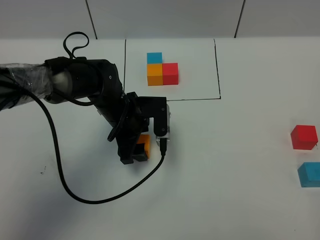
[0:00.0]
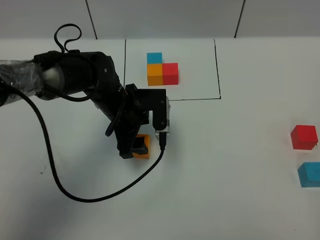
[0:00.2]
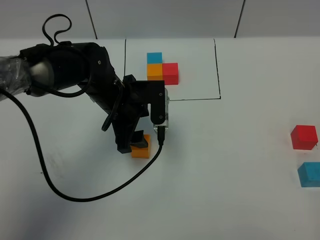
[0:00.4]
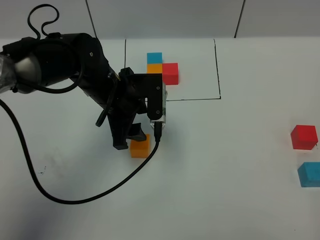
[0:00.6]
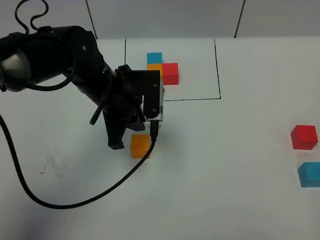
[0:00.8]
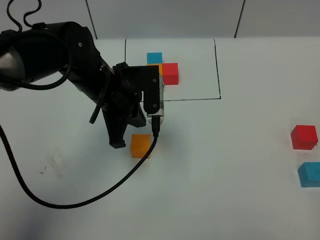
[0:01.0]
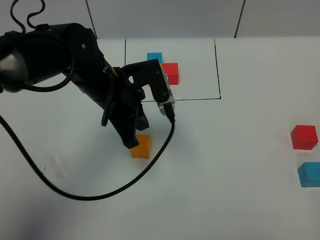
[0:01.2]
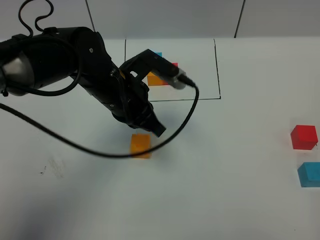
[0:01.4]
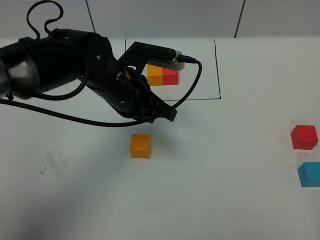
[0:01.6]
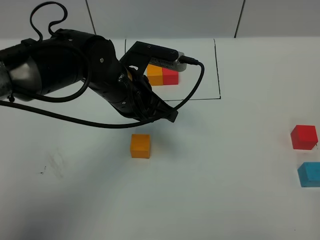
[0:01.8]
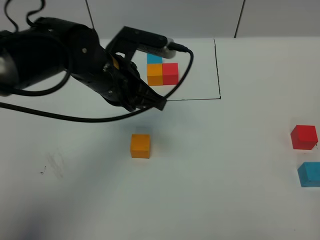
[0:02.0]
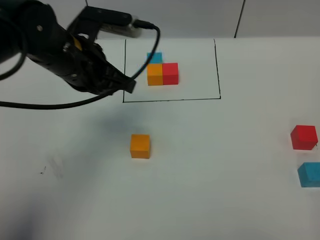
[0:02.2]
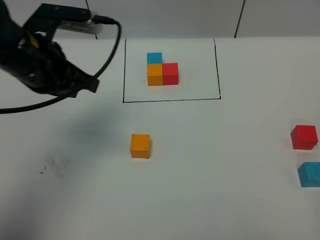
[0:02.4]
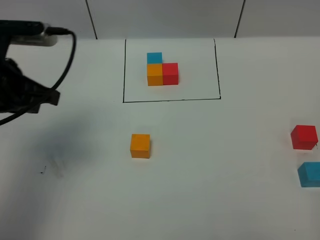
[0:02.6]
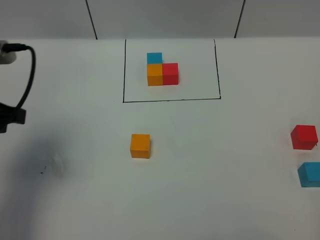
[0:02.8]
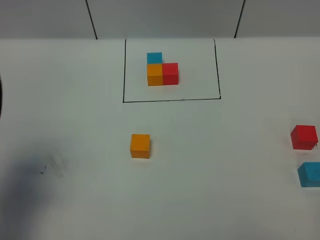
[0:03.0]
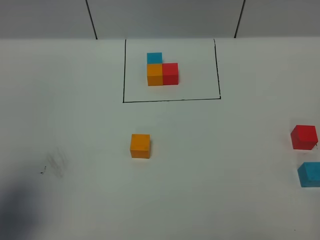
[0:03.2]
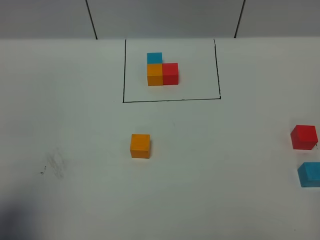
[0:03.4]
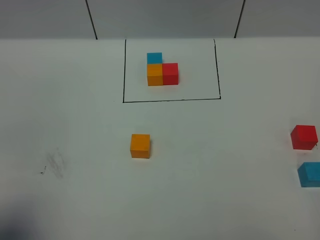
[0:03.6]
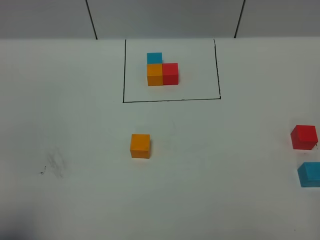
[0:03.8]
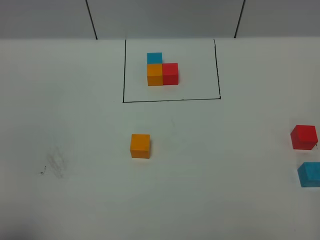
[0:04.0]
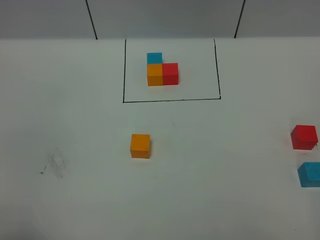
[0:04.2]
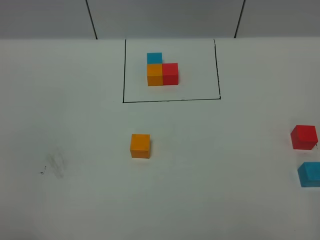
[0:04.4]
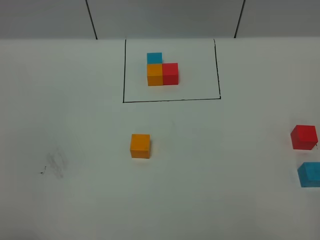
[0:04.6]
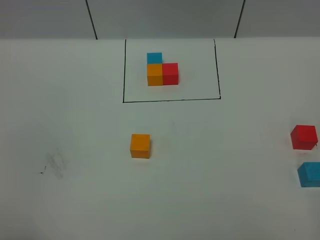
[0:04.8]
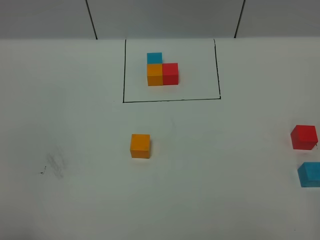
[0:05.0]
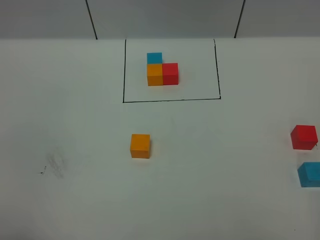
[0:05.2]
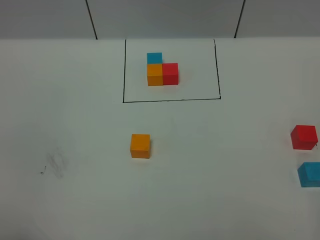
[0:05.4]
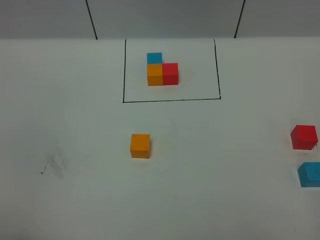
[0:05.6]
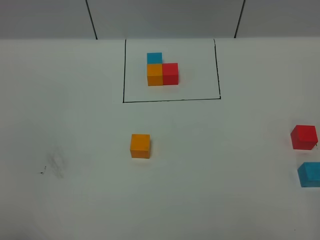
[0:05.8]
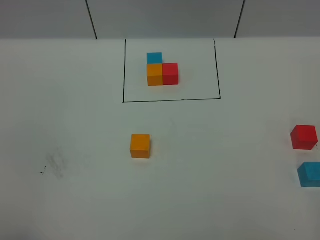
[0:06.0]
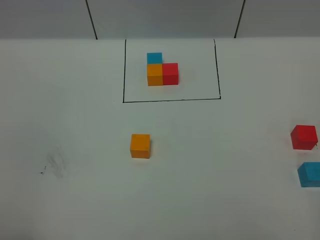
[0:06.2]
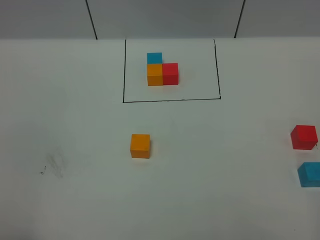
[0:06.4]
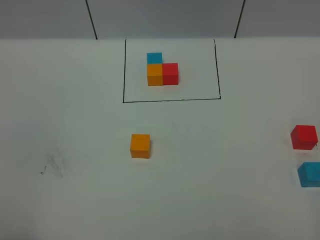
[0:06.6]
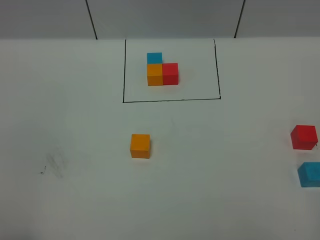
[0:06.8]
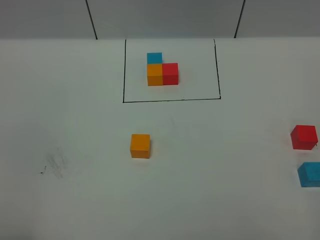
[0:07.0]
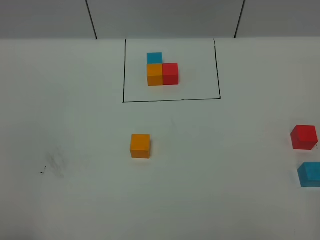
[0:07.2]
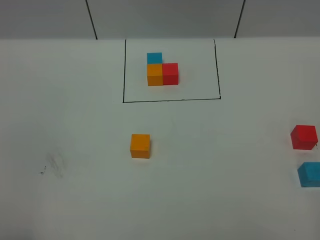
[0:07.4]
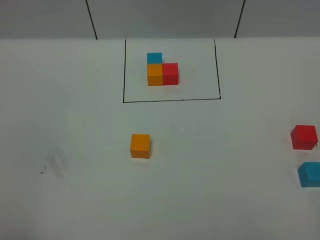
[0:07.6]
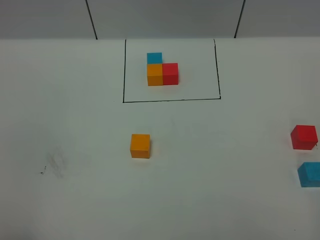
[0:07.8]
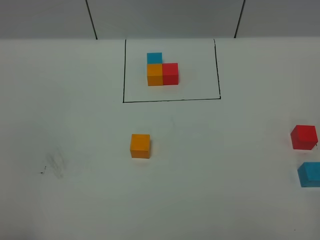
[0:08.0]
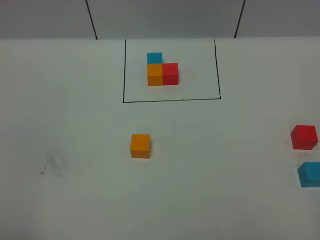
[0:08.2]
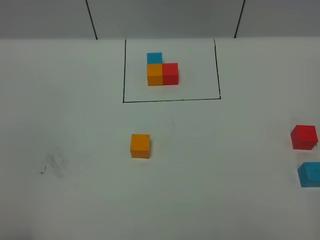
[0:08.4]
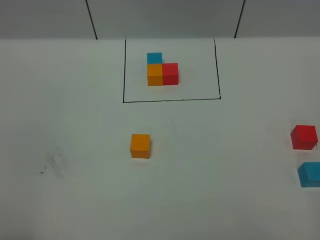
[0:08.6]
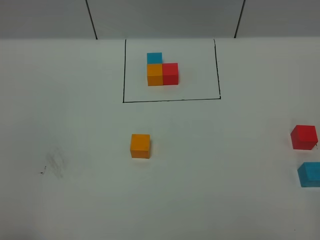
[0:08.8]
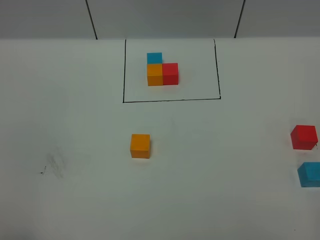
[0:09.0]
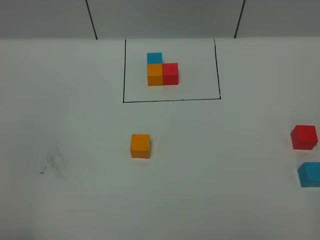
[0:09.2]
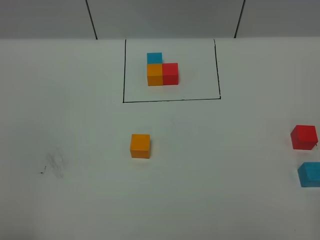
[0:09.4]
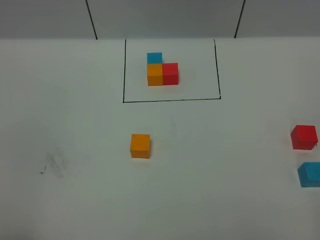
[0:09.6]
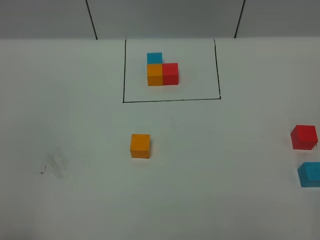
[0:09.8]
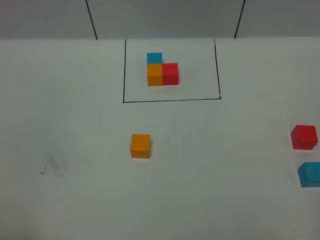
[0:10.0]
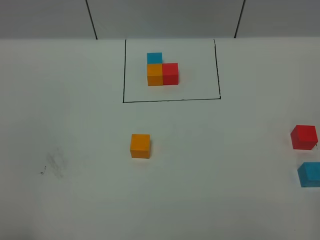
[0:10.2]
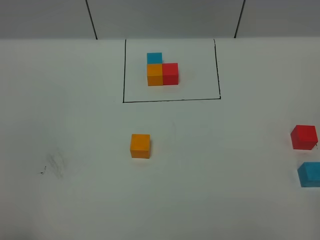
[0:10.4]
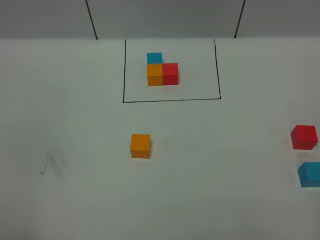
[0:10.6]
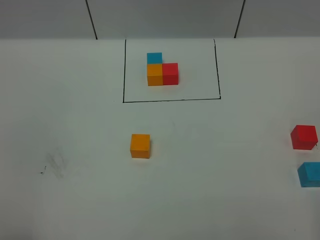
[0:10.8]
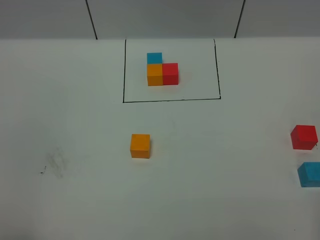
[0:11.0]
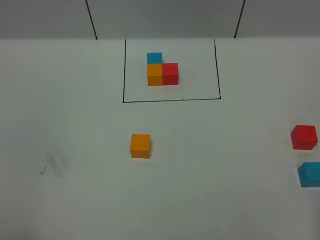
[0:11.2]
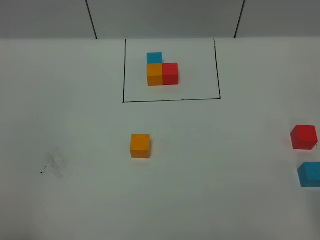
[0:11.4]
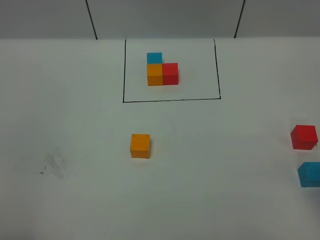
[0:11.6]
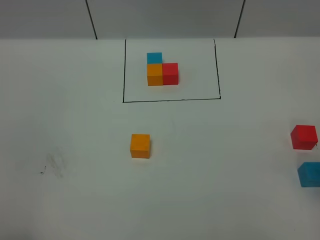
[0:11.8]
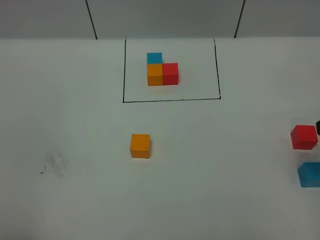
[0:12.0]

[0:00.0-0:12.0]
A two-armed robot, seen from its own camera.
Task of the whole recording: According to the building block template in front, assemble the scattered blocks together.
0:00.0 to 0:01.6: The left gripper heads upward, covering about 10 cm, and closes up.
0:01.6 to 0:03.0: The left gripper moves to the left and backward, about 30 cm.
0:03.0 to 0:04.4: The left gripper travels backward by approximately 15 cm.
0:04.4 to 0:06.0: Both grippers stay about where they are.

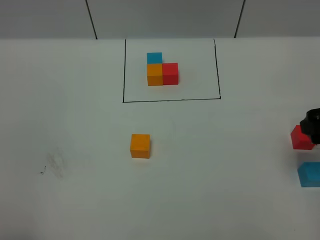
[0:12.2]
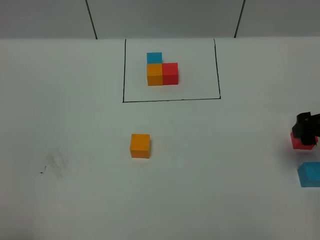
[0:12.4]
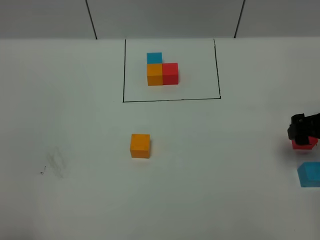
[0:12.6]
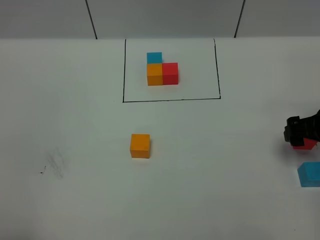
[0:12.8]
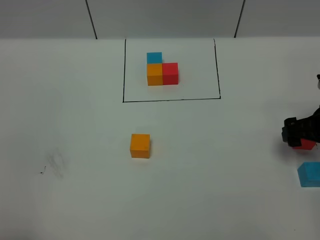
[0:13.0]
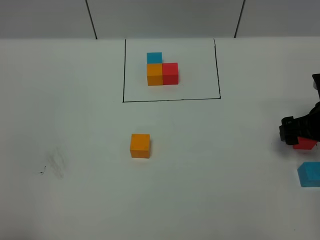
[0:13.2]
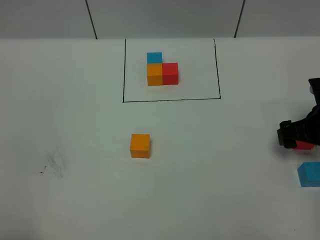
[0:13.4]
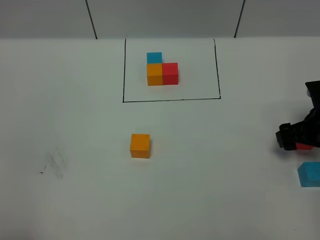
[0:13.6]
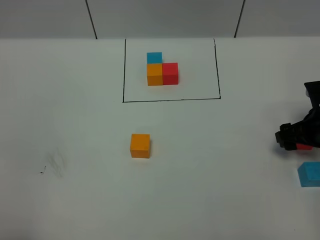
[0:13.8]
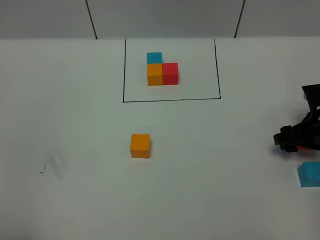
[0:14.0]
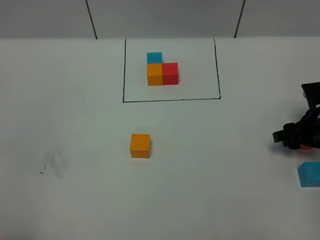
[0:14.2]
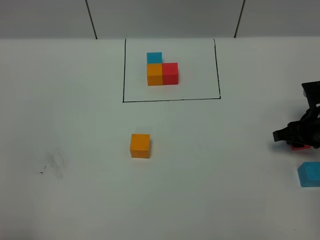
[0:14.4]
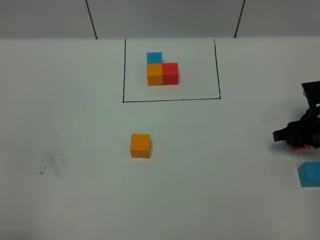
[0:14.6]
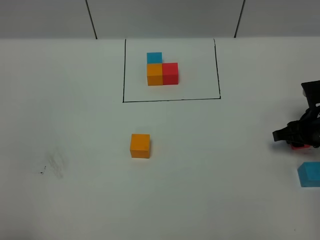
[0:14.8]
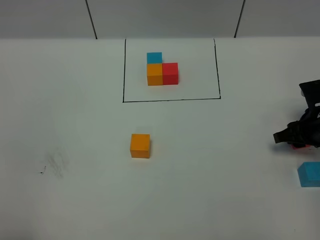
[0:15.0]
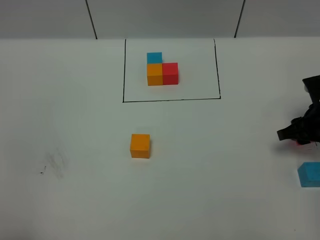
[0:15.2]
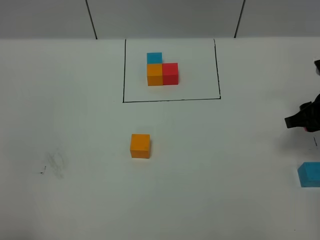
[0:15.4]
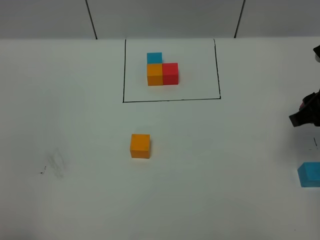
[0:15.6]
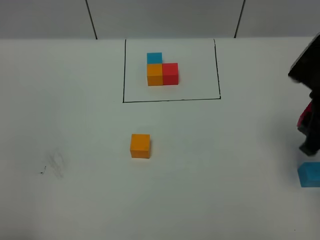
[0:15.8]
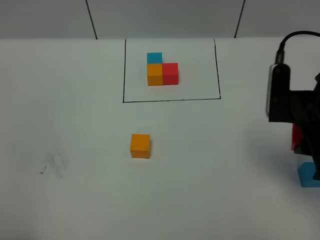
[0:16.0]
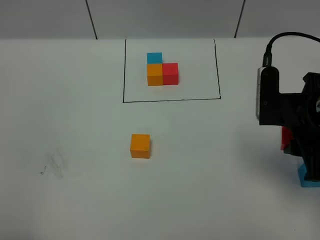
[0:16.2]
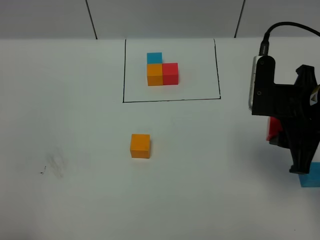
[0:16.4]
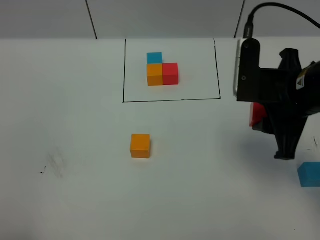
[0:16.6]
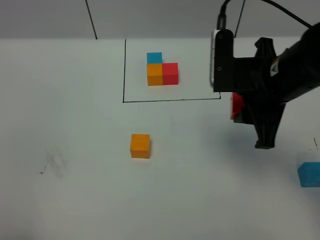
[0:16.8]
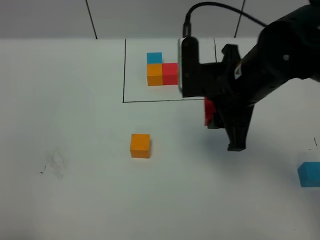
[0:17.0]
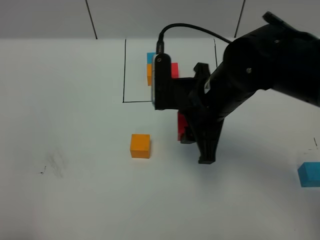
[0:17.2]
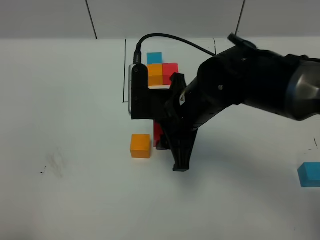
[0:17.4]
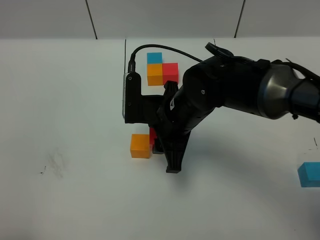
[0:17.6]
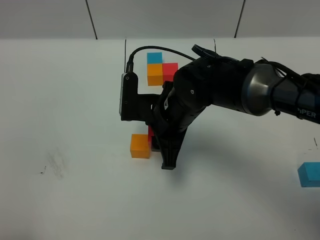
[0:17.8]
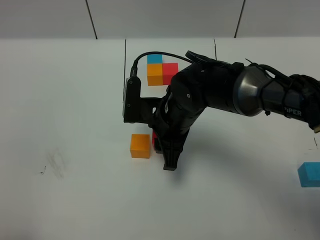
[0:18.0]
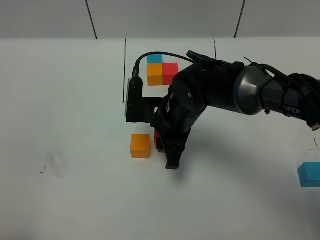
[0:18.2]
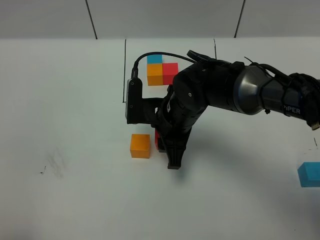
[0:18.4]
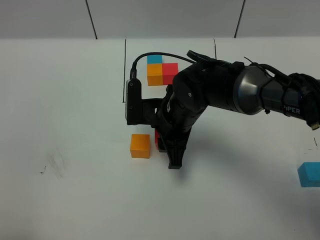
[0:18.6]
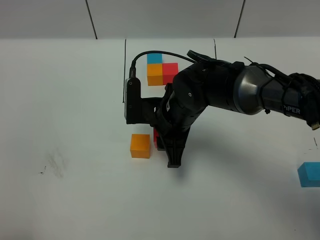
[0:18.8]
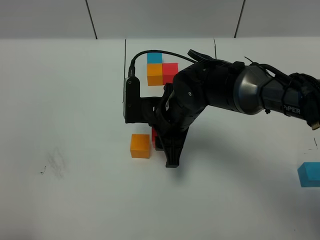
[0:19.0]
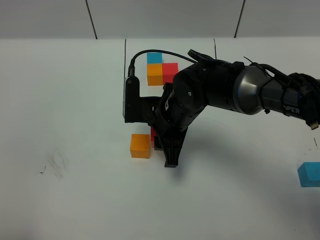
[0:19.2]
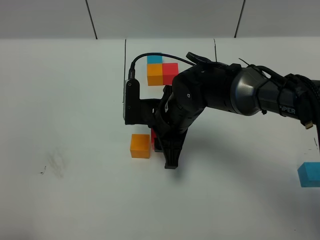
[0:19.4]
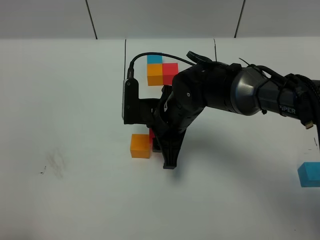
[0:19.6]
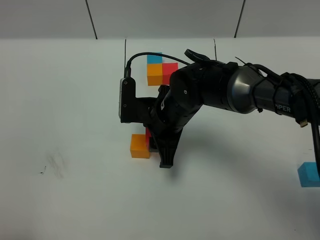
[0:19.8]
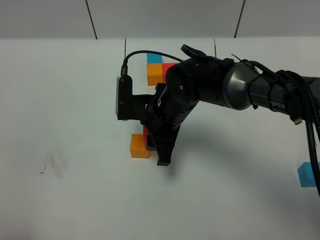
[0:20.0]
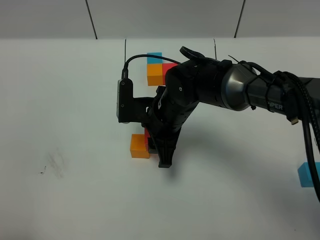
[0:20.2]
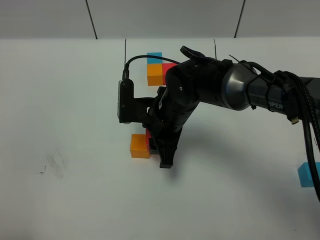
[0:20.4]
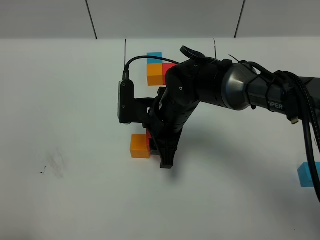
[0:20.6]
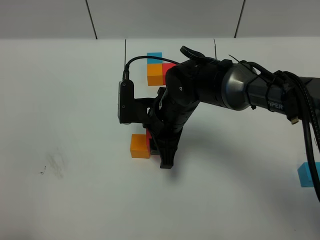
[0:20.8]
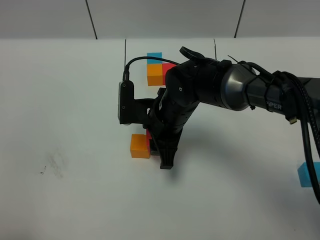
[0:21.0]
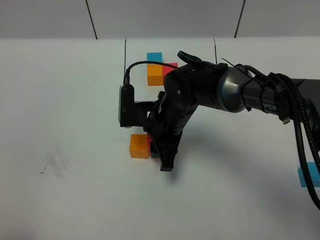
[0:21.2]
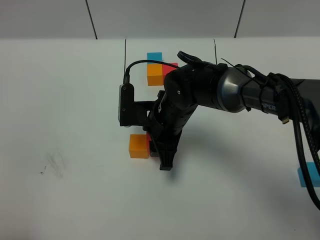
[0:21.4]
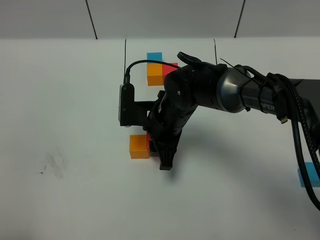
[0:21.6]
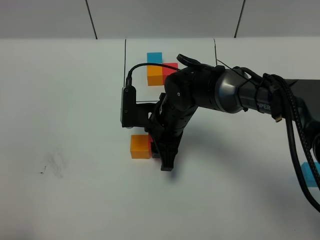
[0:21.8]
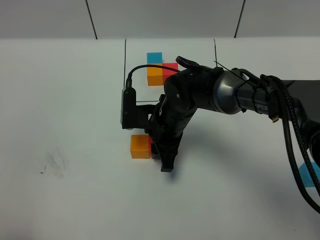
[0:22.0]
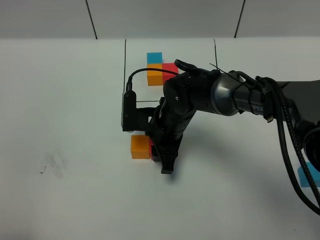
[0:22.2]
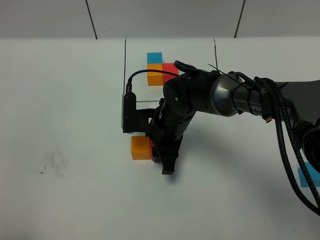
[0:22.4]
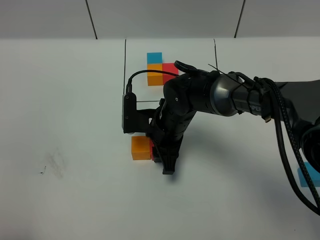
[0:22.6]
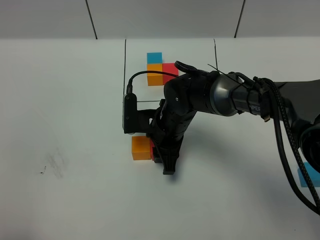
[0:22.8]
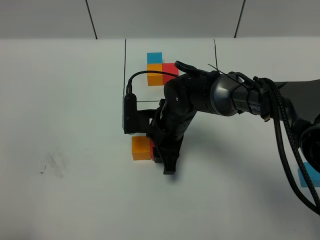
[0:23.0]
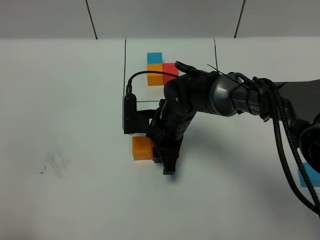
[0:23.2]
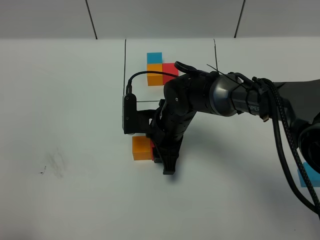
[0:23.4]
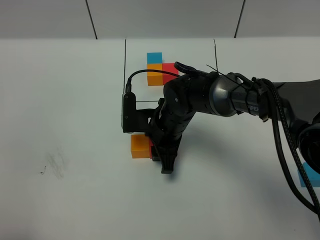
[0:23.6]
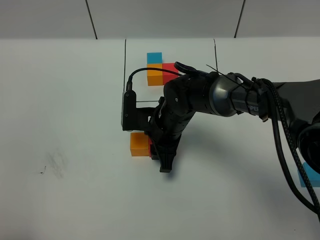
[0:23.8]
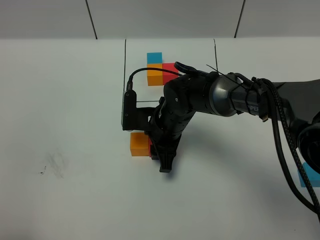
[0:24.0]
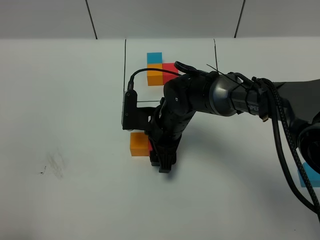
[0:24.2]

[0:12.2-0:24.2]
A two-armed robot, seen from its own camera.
Task of the whole recording: According to the building block template in front, assemble the scattered blocks together.
0:12.2 to 0:13.8: The right gripper travels downward and forward by roughly 15 cm.
0:13.8 to 0:15.2: The right gripper closes its fingers.
0:15.2 to 0:16.6: The right gripper goes some 20 cm upward and to the left.
0:16.6 to 0:18.2: The right gripper moves to the left and downward, roughly 20 cm.
0:18.2 to 0:22.6: The grippers move only a little.
0:22.6 to 0:24.2: The two grippers keep their place.
